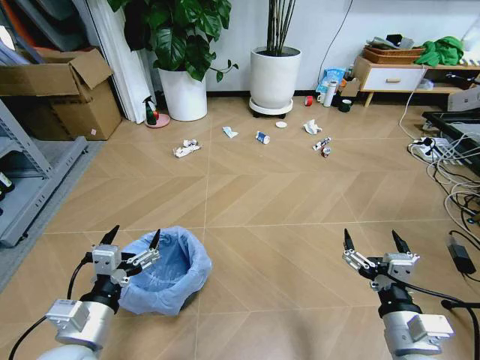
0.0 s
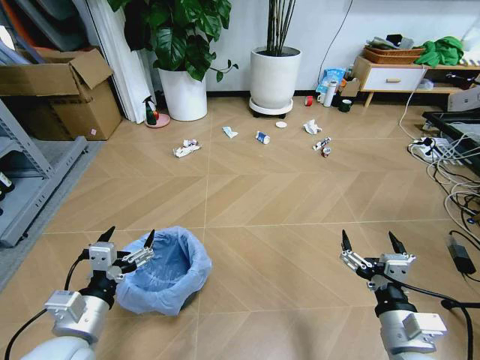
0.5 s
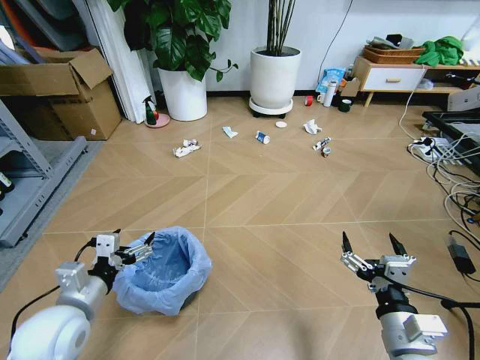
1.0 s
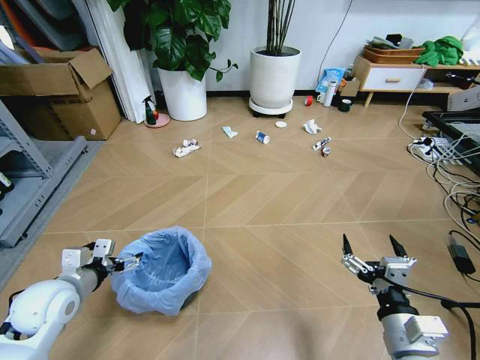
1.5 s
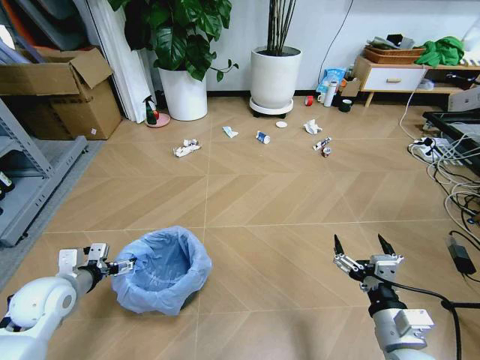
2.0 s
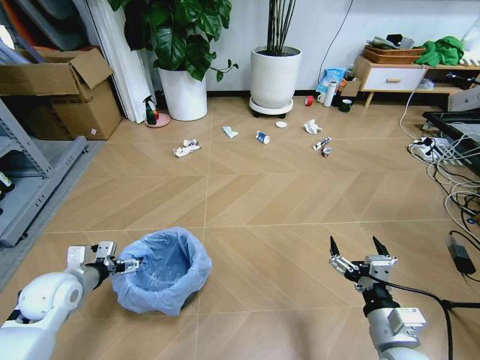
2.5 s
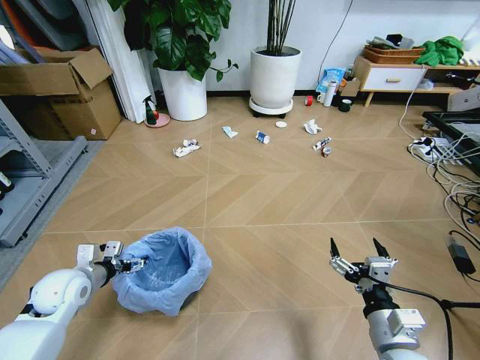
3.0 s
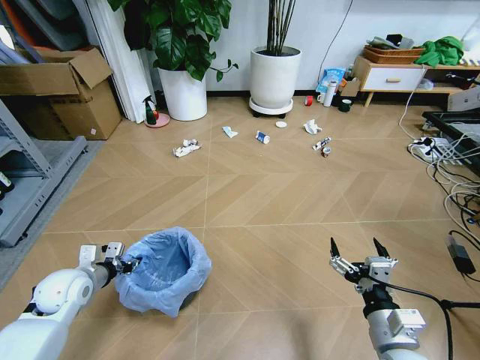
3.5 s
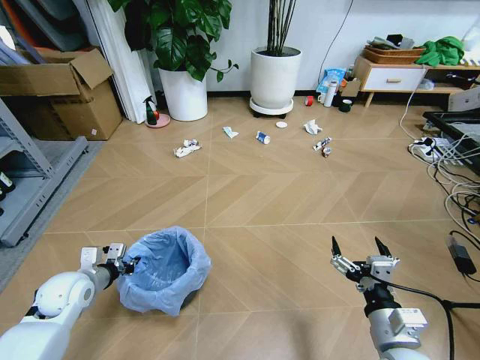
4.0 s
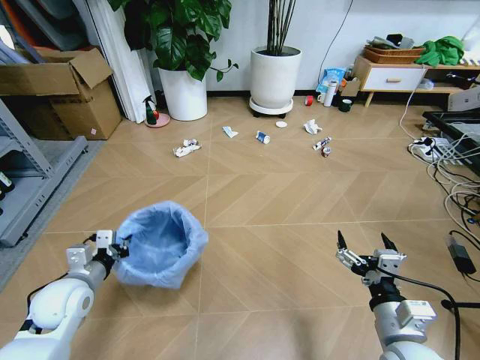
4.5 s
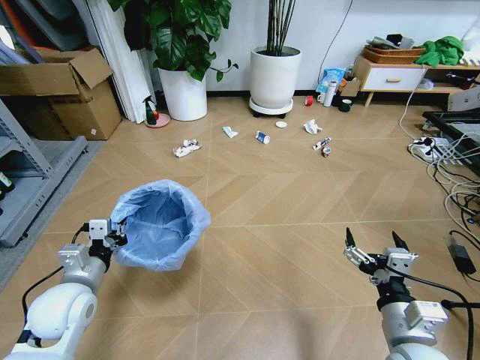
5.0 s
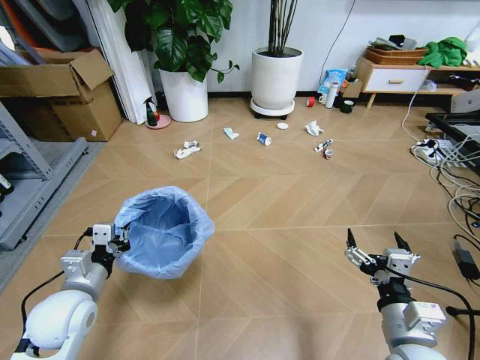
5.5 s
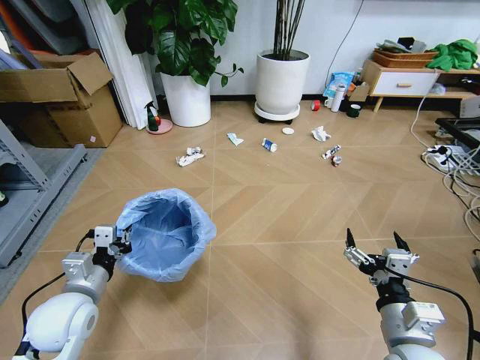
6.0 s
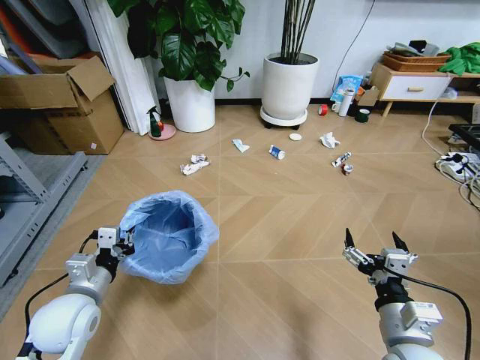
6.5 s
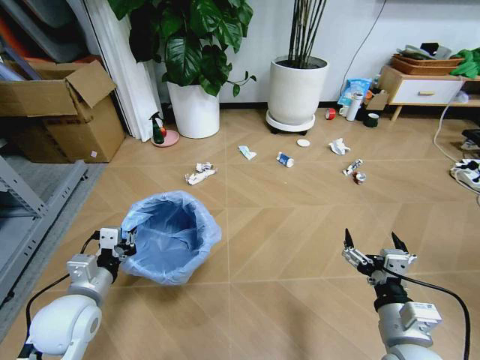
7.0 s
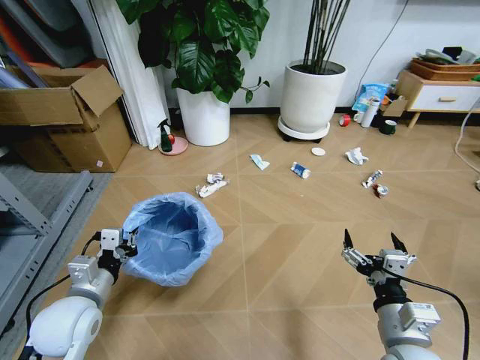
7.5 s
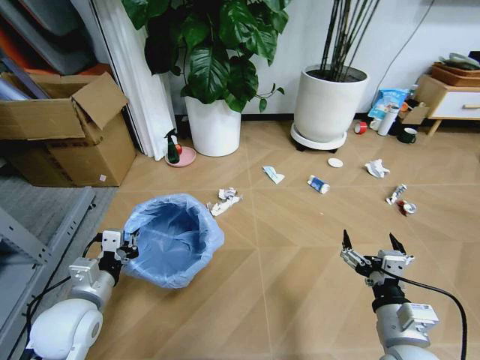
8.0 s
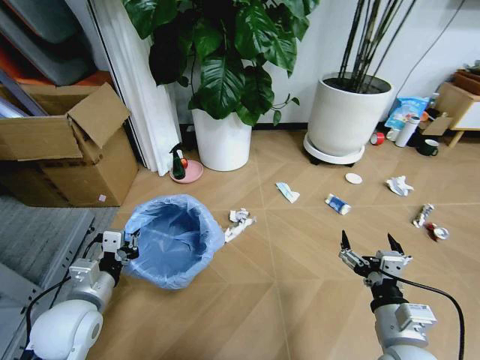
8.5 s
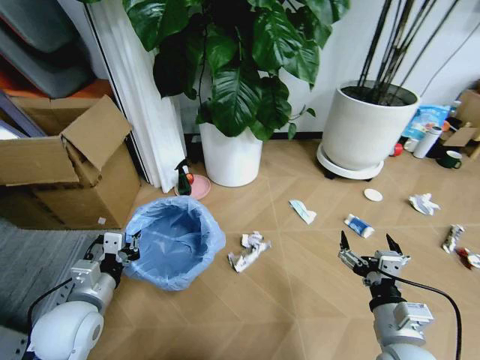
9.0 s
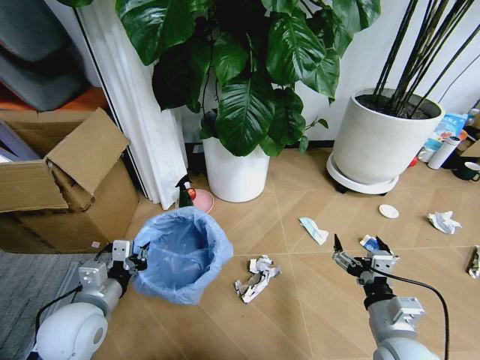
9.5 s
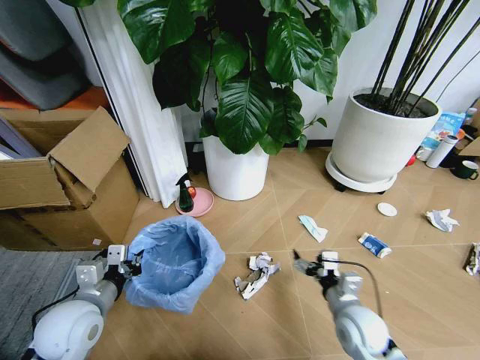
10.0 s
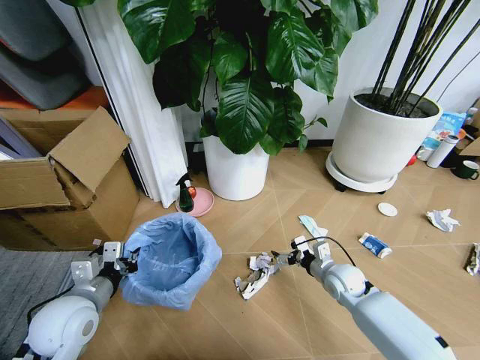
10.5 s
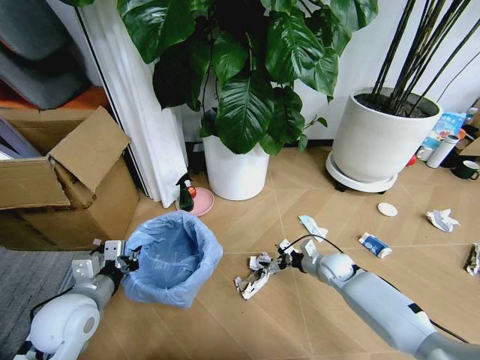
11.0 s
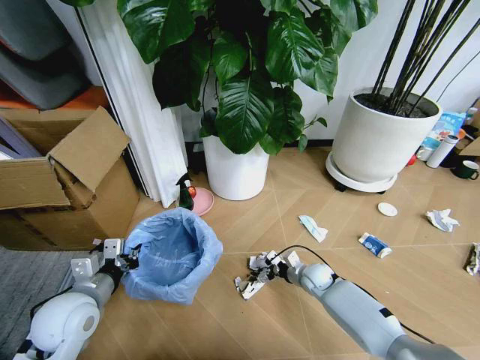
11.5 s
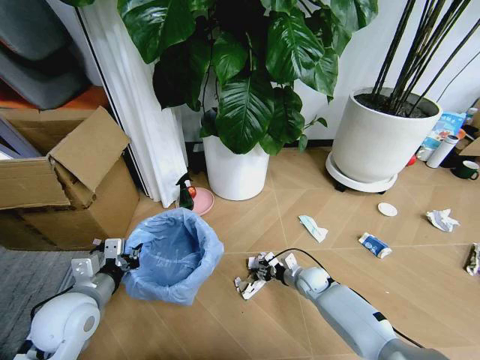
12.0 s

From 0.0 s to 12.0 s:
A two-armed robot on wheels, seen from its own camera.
Task of the whole recording: Pick up the trash bin and place the garbage on the floor into it.
From 2.0 s to 4.0 s: The left gripper closes.
From 4.0 s to 6.0 s: The left gripper travels backward, to the right and upward by approximately 10 cm.
From 8.0 s to 10.0 s: The right gripper goes about 10 cm downward and forward.
From 10.0 s to 12.0 s: The right gripper goes approximately 25 cm forward and downward, and closes up.

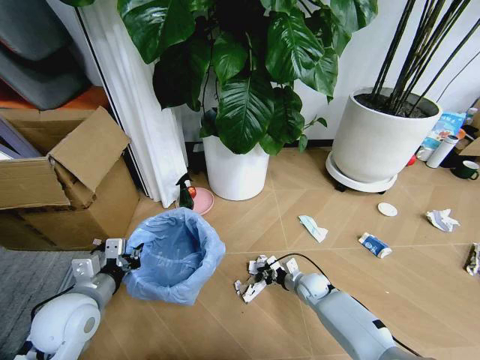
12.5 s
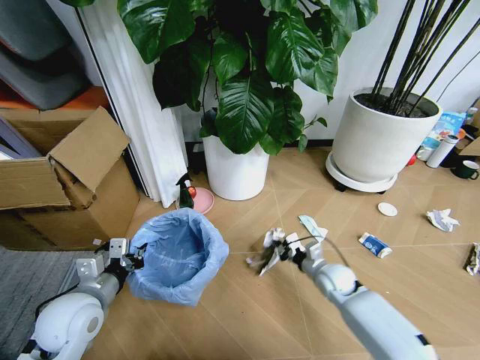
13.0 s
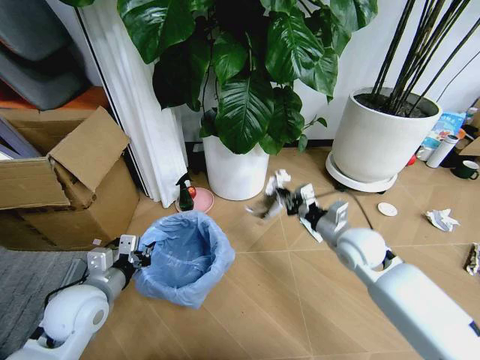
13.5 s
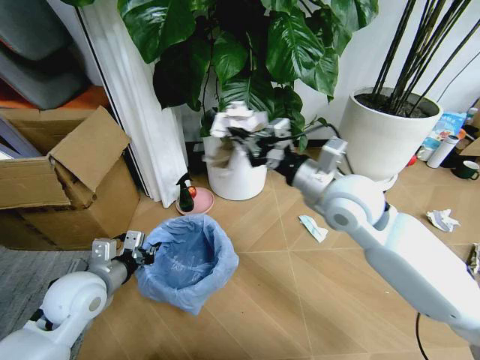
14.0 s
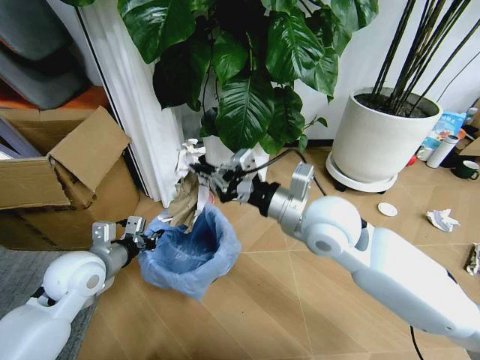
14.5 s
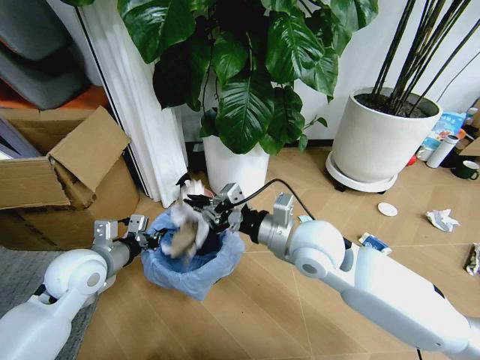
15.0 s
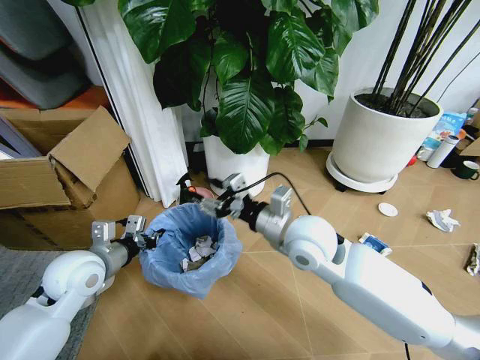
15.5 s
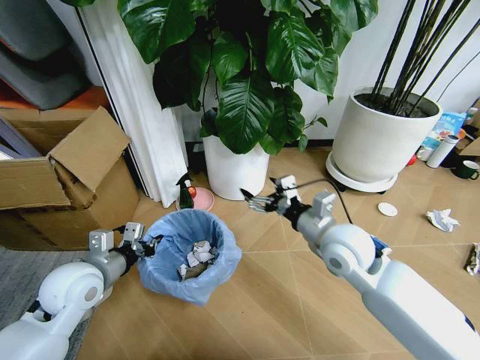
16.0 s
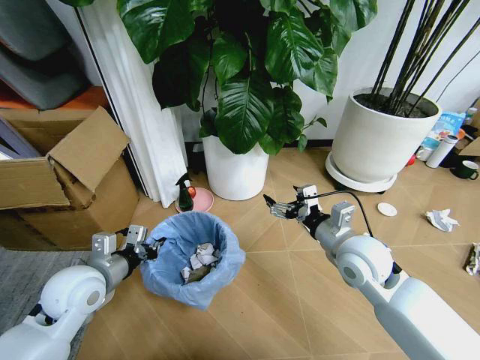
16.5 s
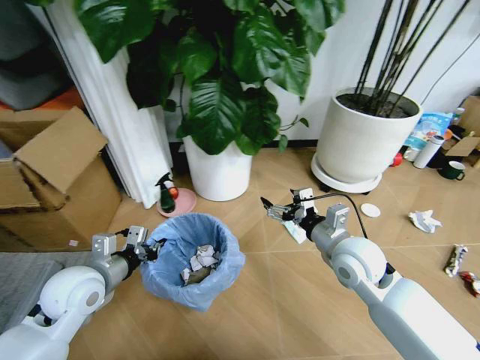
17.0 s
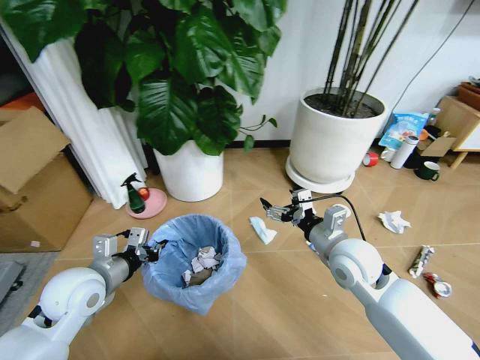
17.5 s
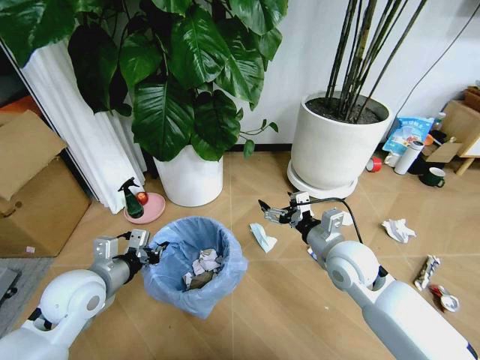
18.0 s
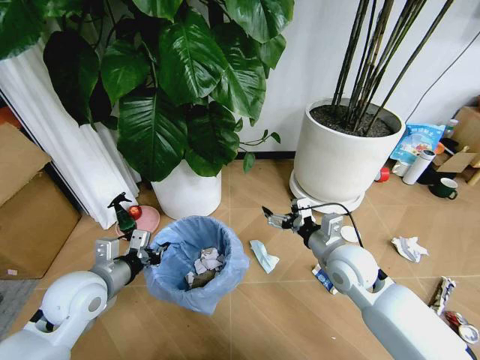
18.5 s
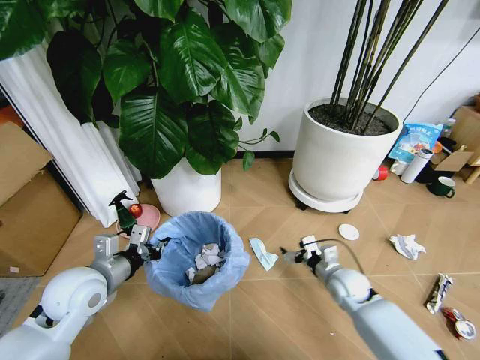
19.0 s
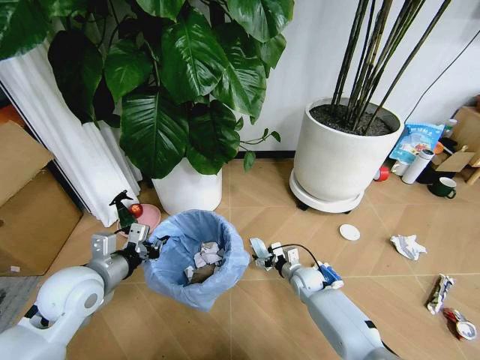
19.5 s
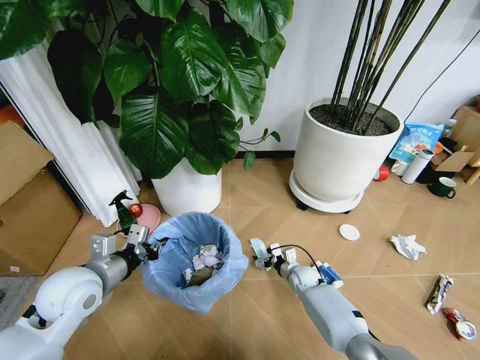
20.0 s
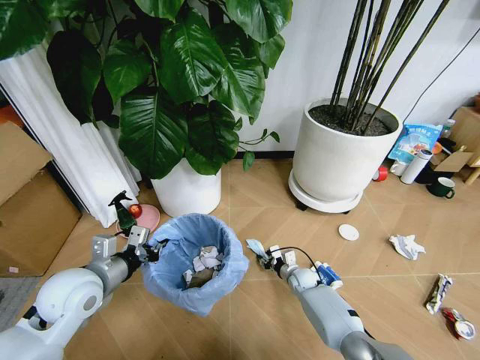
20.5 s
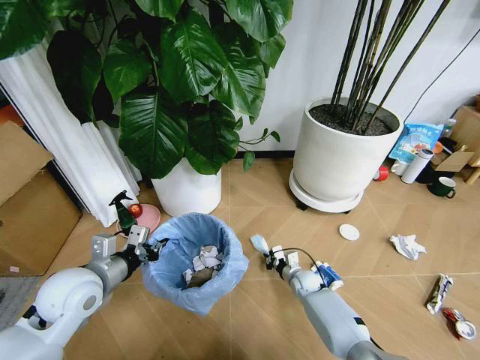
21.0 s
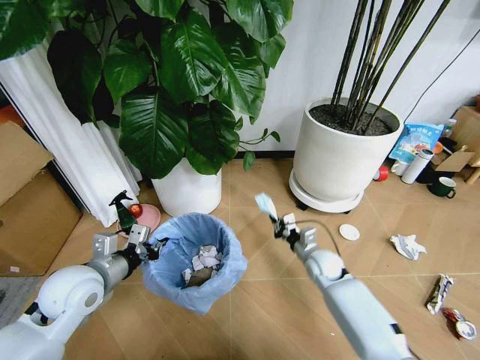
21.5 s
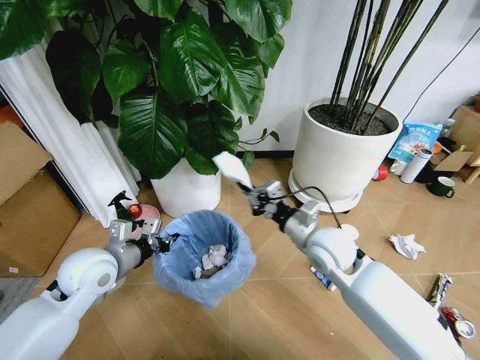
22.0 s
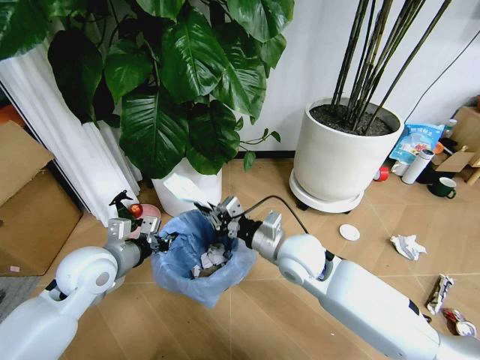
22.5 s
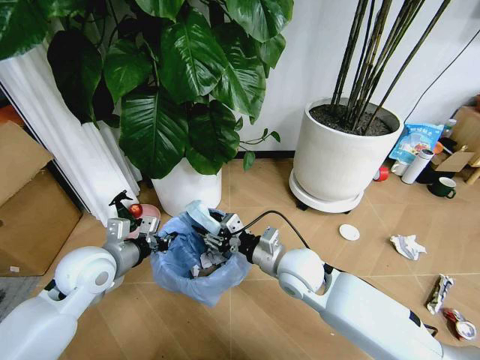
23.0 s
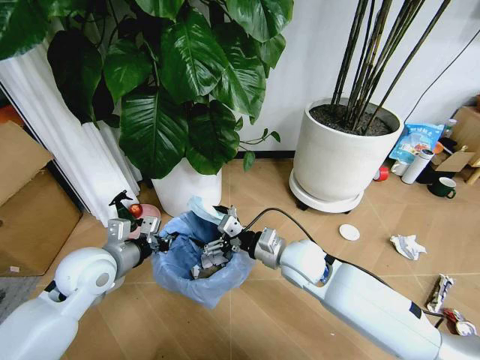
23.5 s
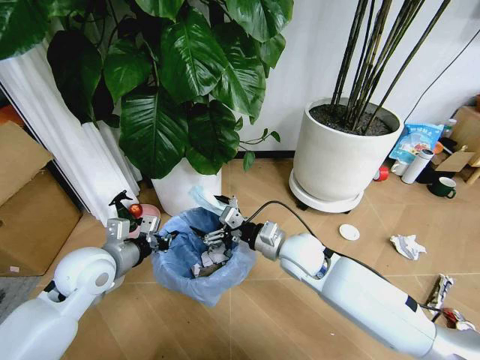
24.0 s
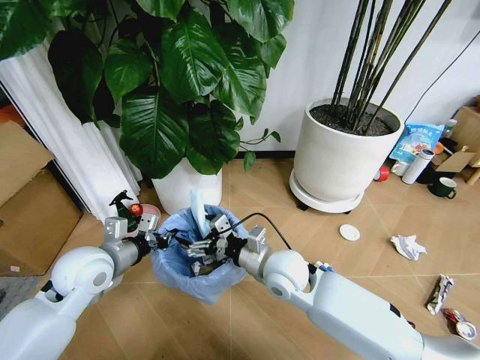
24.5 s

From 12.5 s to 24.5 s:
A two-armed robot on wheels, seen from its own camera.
Task of the whole recording: Pick up the trash bin and place the garbage on the floor into it.
From 12.5 s to 14.5 s: The left gripper heads forward, covering about 5 cm. Meanwhile the right gripper shifts about 40 cm upward.
From 14.5 s to 16.5 s: The right gripper goes about 15 cm downward and to the right, and opens.
From 16.5 s to 18.5 s: The right gripper shifts by roughly 5 cm.
From 18.5 s to 20.5 s: The right gripper is displaced downward by about 30 cm, and closes.
From 20.5 s to 22.5 s: The right gripper shifts roughly 30 cm upward, and closes up.
From 22.5 s to 24.5 s: The right gripper opens its fingers.

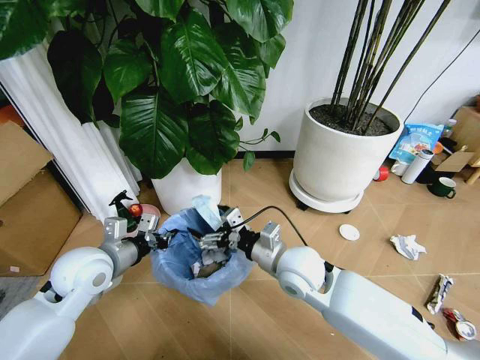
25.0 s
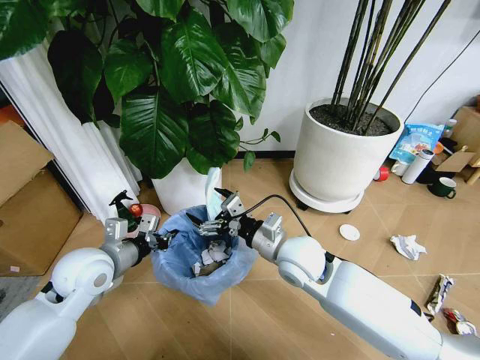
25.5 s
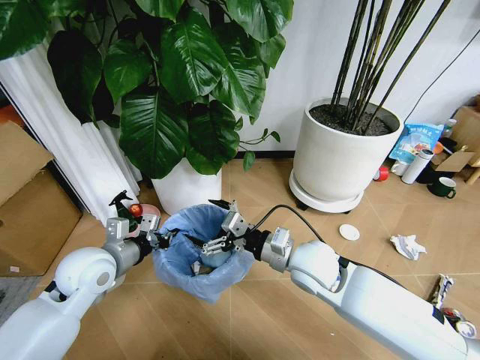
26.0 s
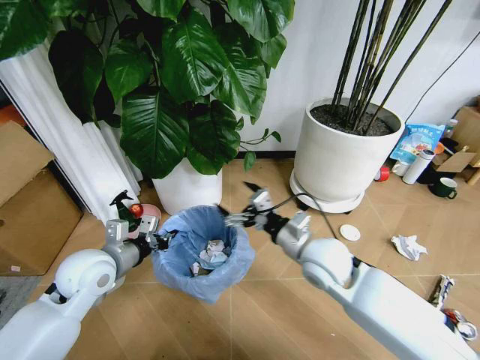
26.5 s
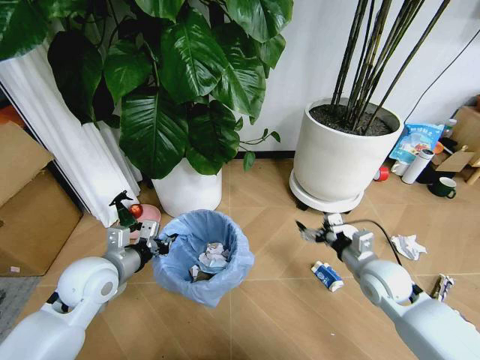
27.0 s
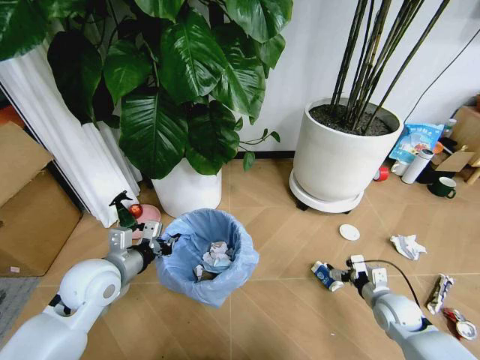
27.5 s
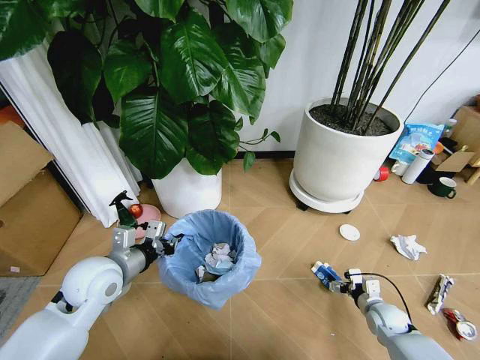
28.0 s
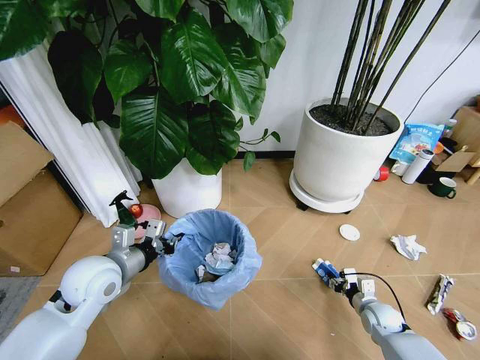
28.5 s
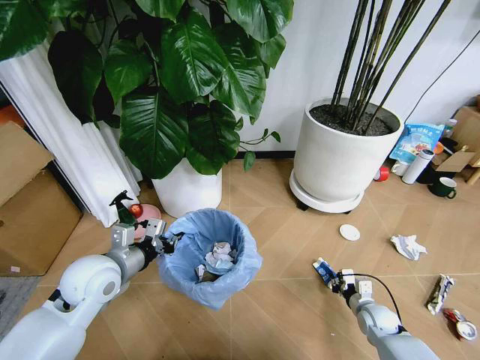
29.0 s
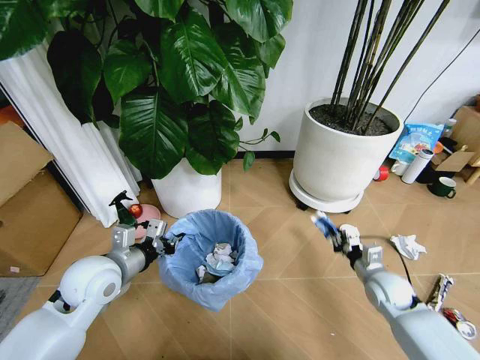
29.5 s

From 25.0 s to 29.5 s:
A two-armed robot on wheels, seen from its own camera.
Task of the whole recording: Pick up the trash bin and place the garbage on the floor into it.
From 25.0 s to 27.0 s: The right gripper moves to the right, approximately 20 cm.
From 27.0 s to 29.5 s: The right gripper reaches about 20 cm downward, then returns, and closes its fingers.
